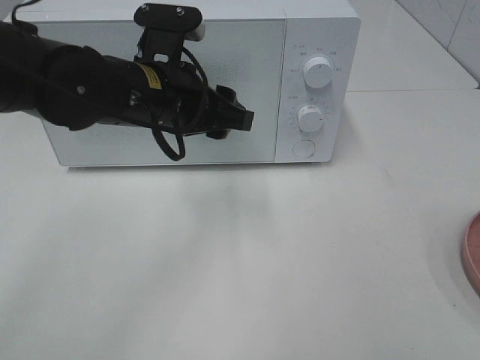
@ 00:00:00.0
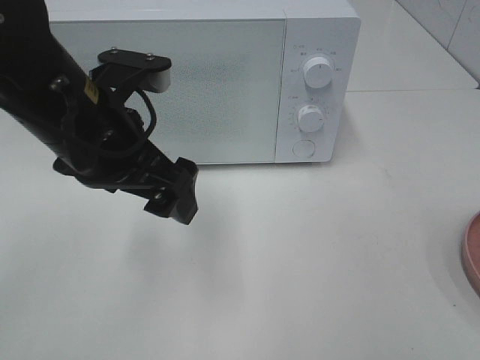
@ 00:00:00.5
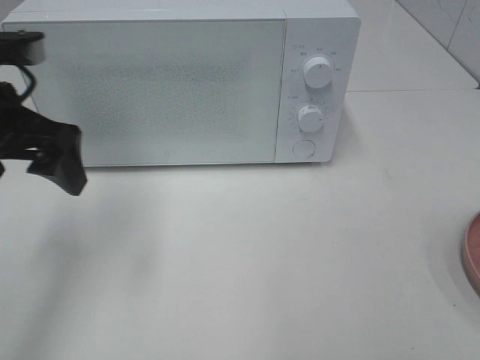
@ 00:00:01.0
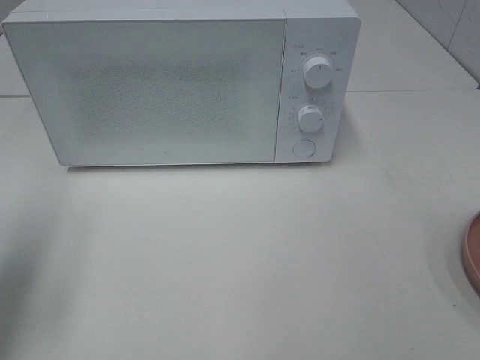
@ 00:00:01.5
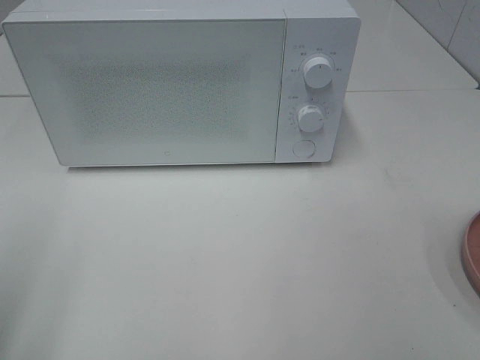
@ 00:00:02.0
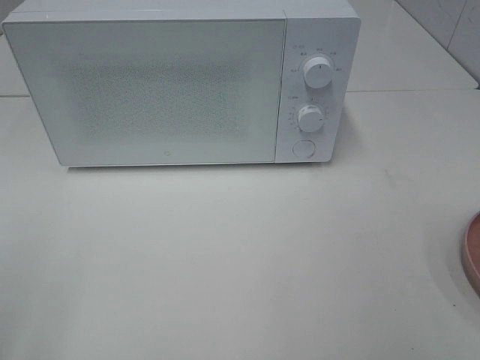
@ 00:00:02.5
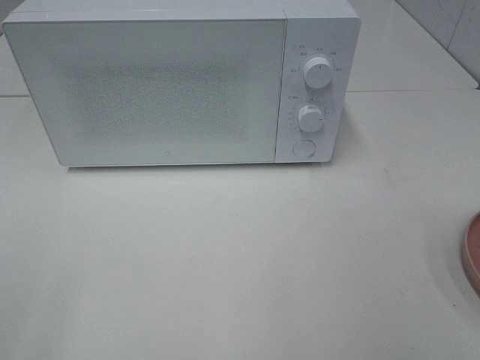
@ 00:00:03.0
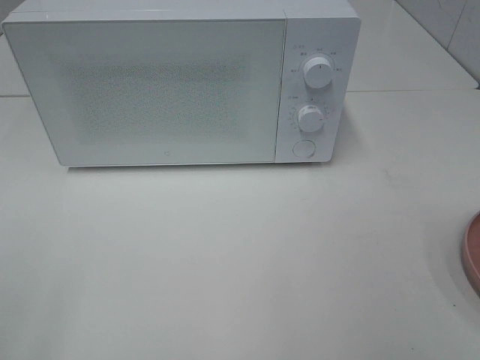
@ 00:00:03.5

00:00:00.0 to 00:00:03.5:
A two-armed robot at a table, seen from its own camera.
Task of the whole recording: Heat the burger.
00:00:00.0 to 00:00:02.0: The left gripper is displaced to the left and backward by some 35 cm.

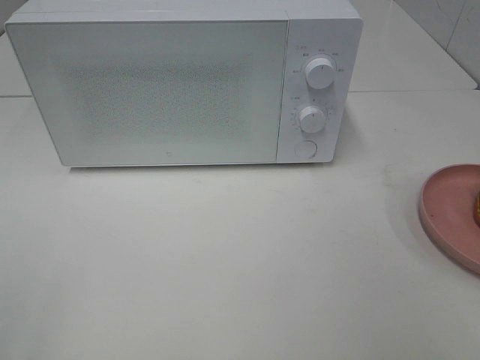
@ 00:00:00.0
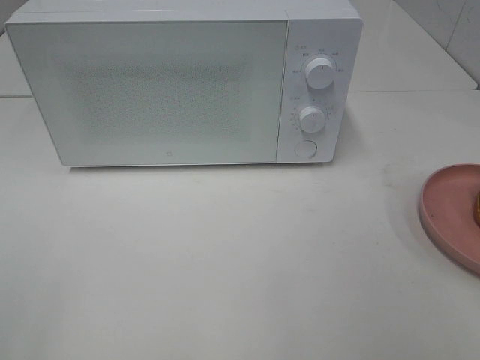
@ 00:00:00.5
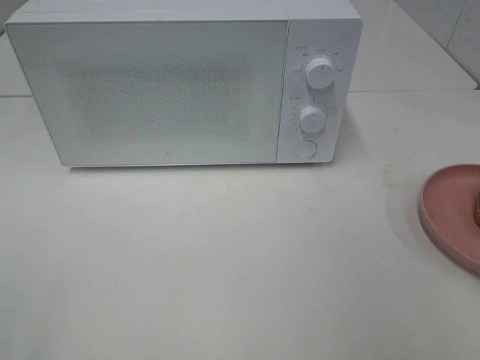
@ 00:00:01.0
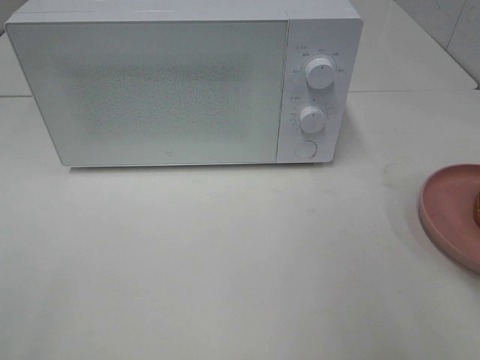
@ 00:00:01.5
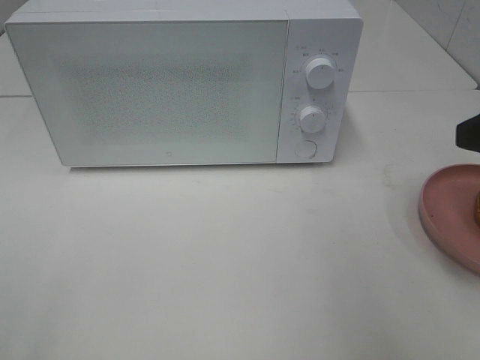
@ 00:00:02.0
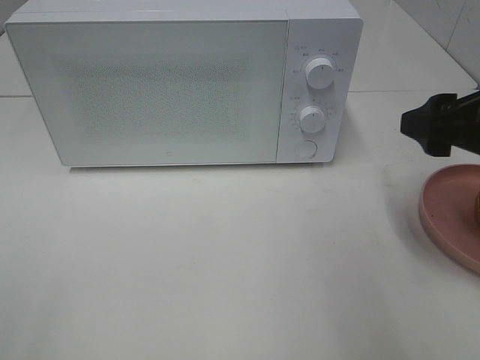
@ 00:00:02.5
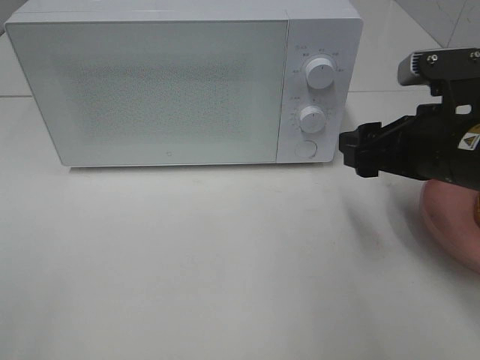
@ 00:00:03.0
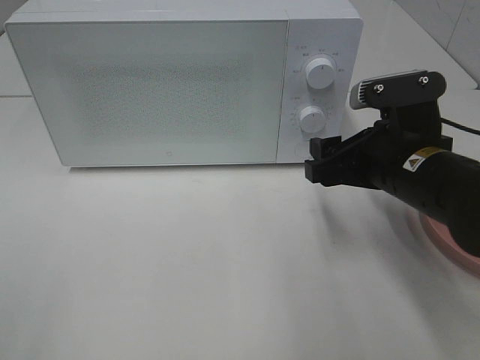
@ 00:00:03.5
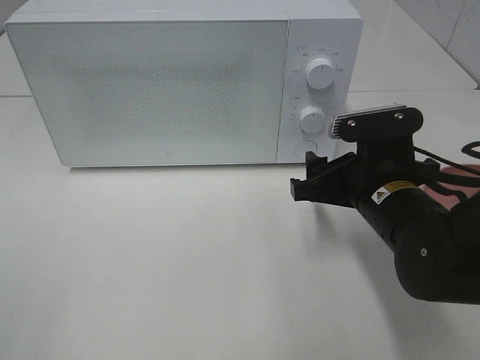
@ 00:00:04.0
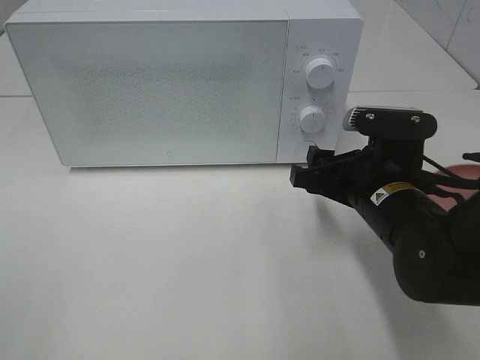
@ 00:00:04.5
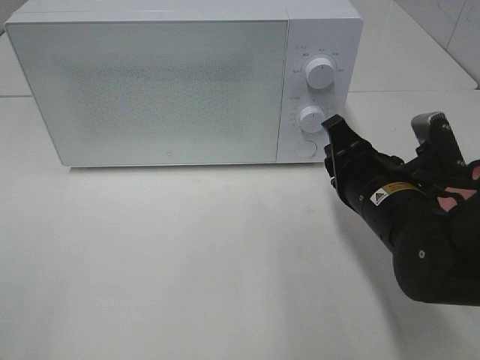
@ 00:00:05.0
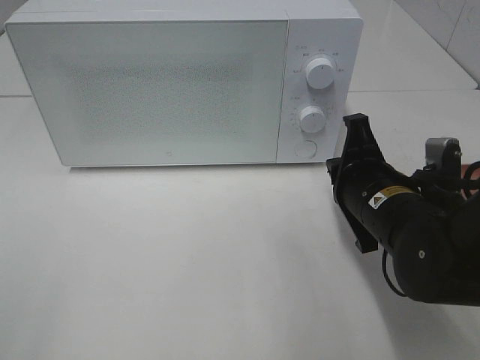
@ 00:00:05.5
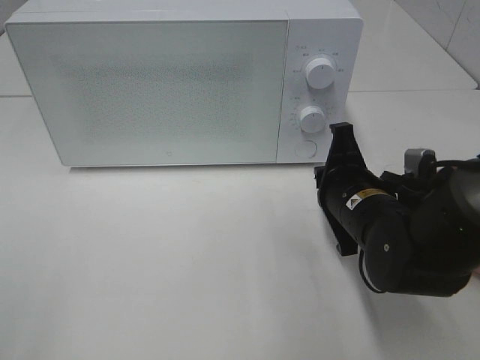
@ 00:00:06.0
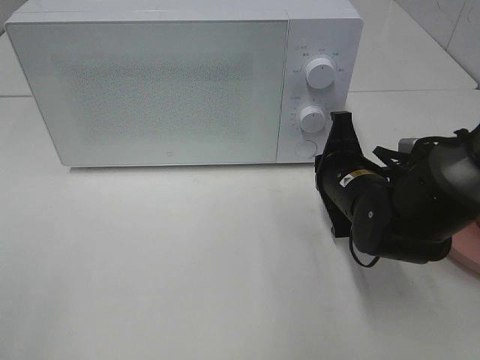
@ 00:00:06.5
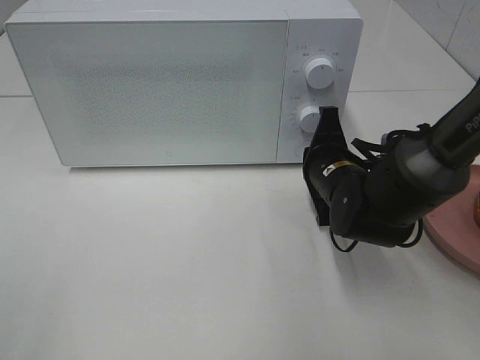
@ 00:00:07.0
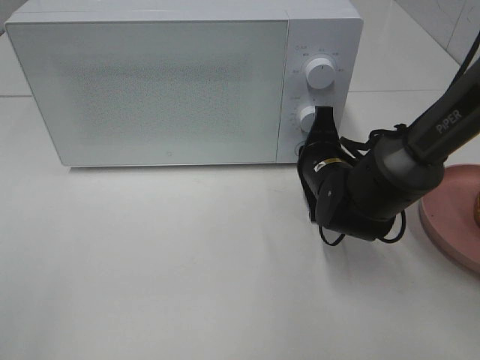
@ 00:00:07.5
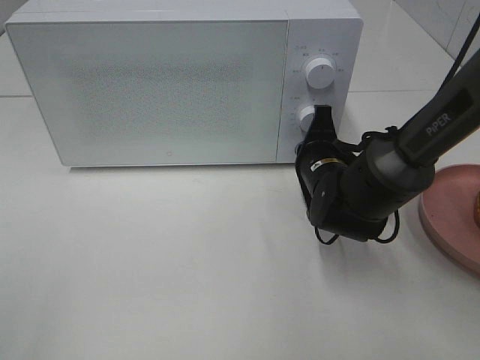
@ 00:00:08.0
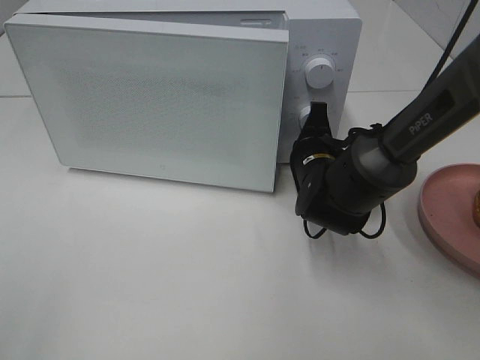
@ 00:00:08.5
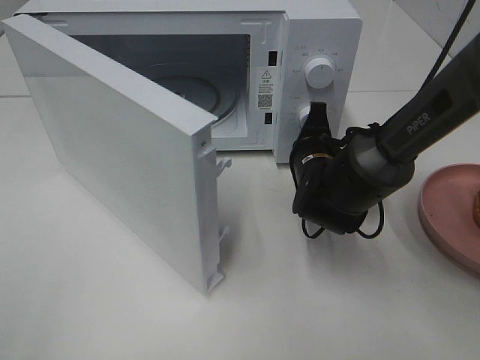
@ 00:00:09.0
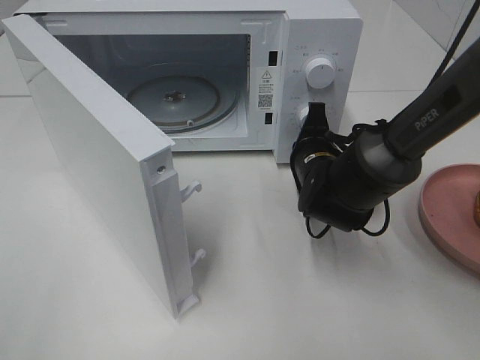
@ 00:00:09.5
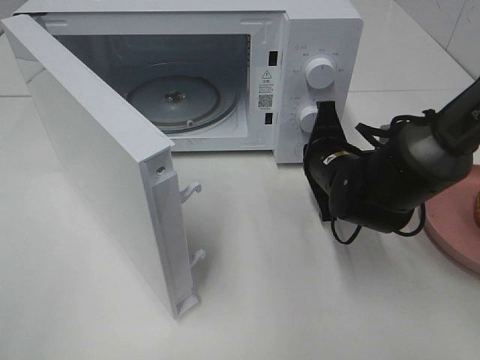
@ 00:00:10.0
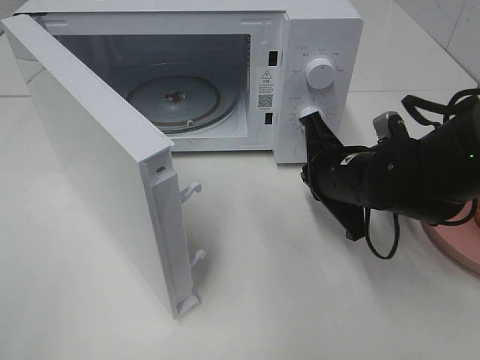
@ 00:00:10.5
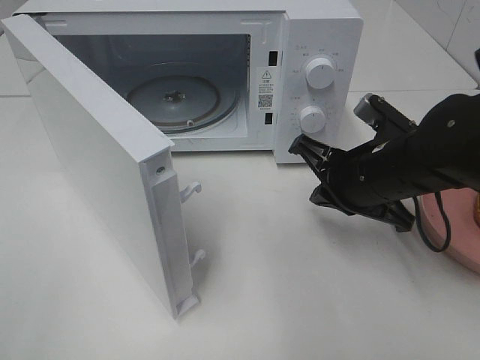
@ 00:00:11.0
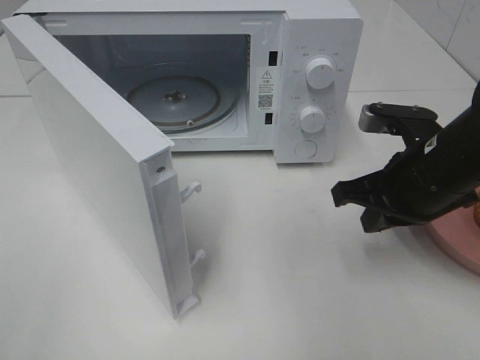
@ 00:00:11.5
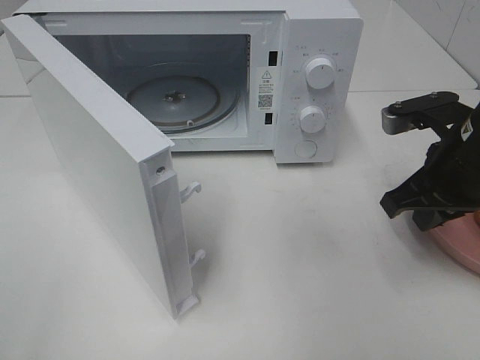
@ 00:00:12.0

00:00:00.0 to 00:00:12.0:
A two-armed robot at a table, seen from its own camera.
Task of the whole recording: Heat the burger.
Step, 00:00:00.0 to 00:00:09.5: Right hand: press the switch.
00:00:02.0 to 00:00:04.0: The right gripper is displaced downward, to the left and forward by roughly 20 cm.
00:00:04.0 to 00:00:06.0: The right gripper closes its fingers.
00:00:06.0 to 00:00:08.0: The right gripper goes about 10 cm forward.
00:00:10.0 to 00:00:12.0: The right gripper heads upward, to the right and backward, covering roughly 15 cm.

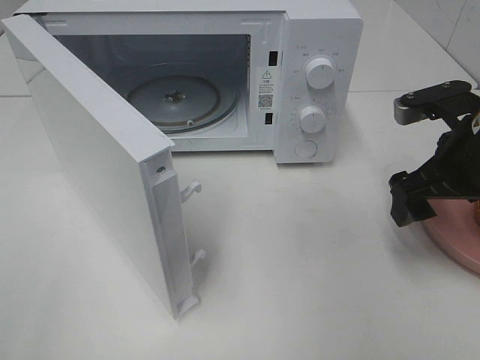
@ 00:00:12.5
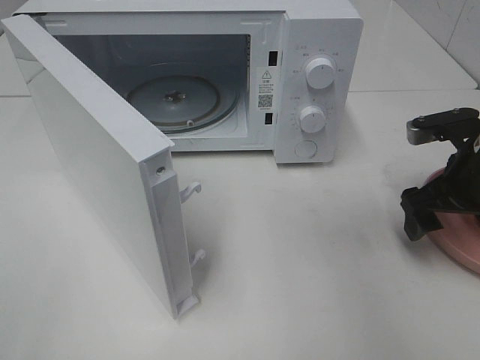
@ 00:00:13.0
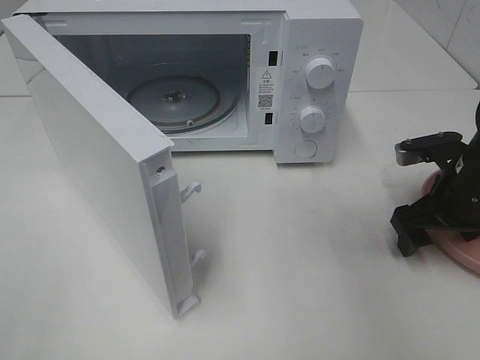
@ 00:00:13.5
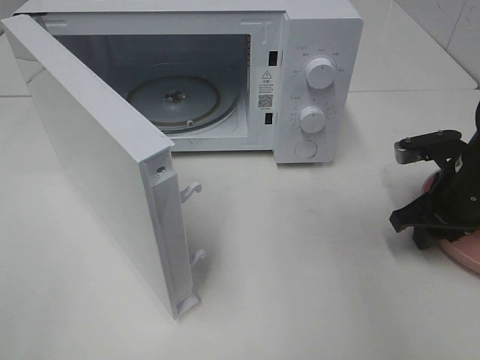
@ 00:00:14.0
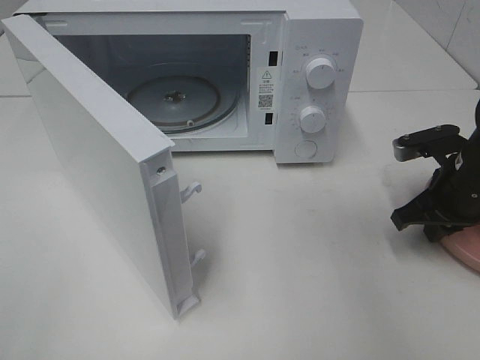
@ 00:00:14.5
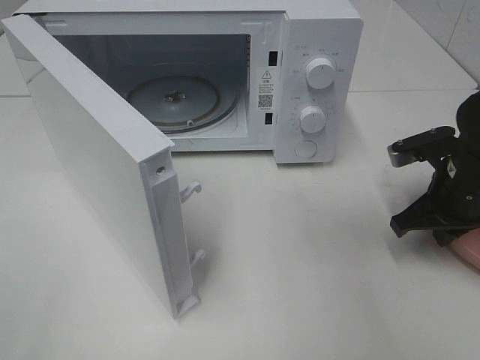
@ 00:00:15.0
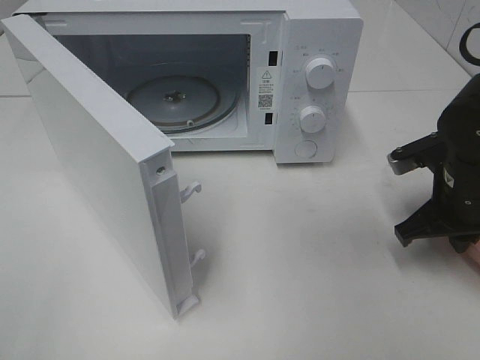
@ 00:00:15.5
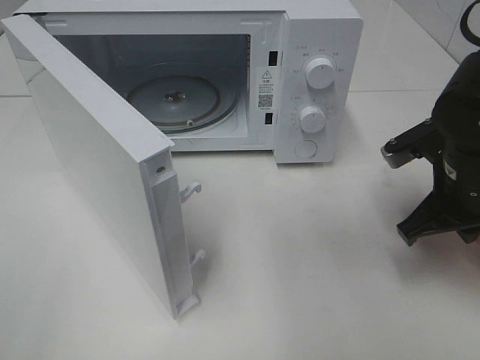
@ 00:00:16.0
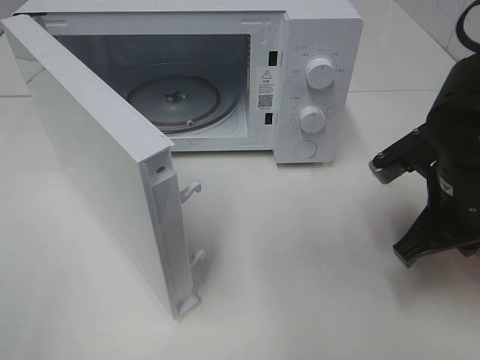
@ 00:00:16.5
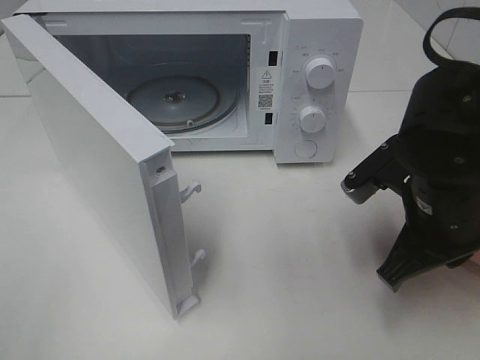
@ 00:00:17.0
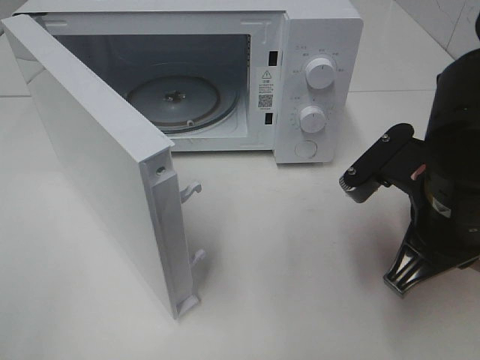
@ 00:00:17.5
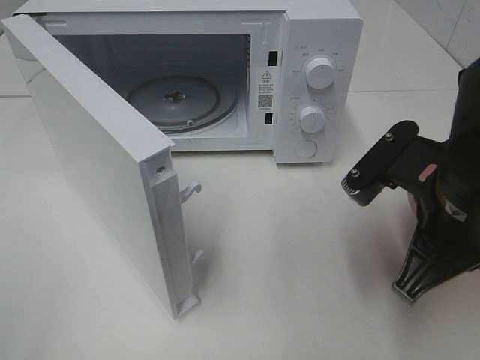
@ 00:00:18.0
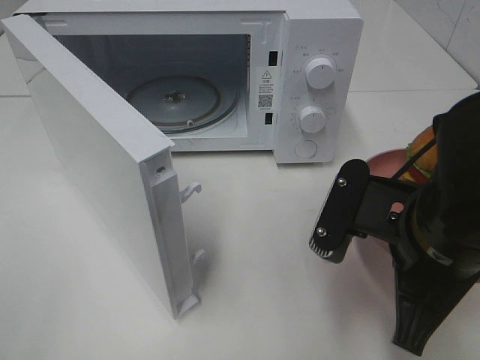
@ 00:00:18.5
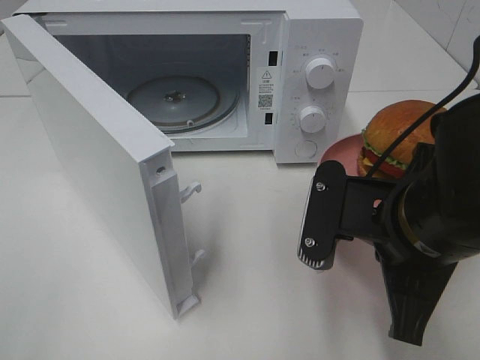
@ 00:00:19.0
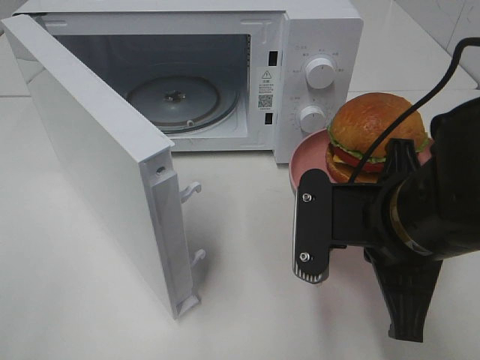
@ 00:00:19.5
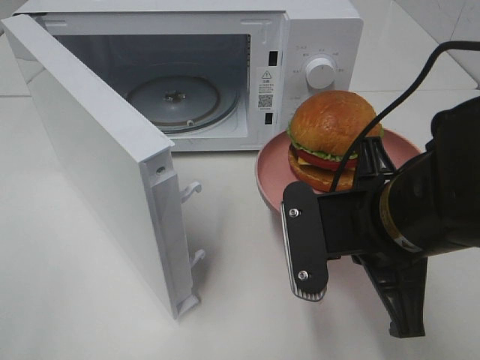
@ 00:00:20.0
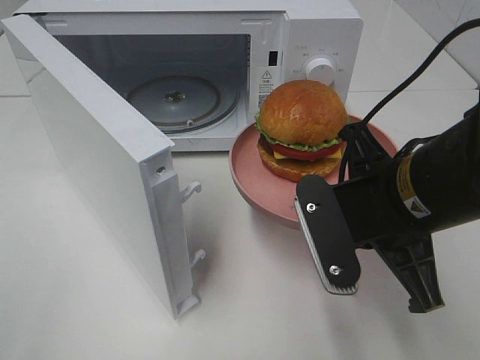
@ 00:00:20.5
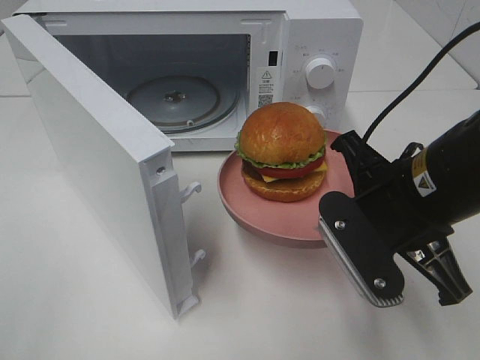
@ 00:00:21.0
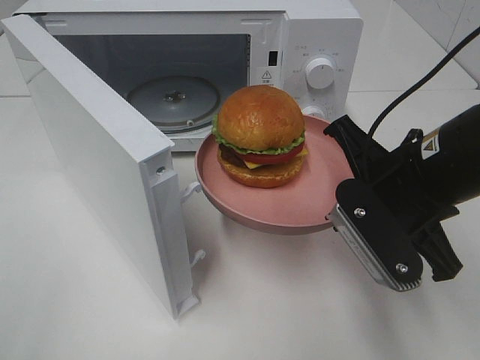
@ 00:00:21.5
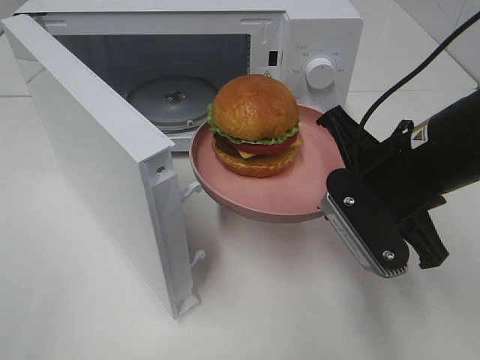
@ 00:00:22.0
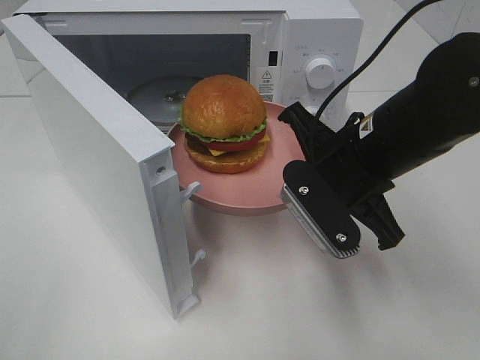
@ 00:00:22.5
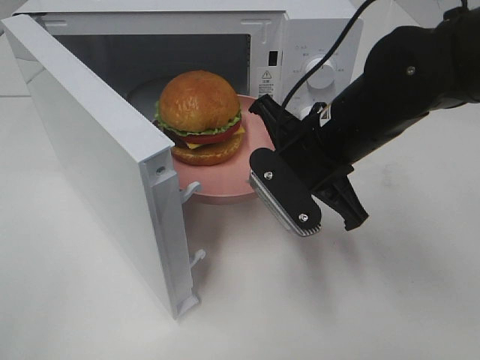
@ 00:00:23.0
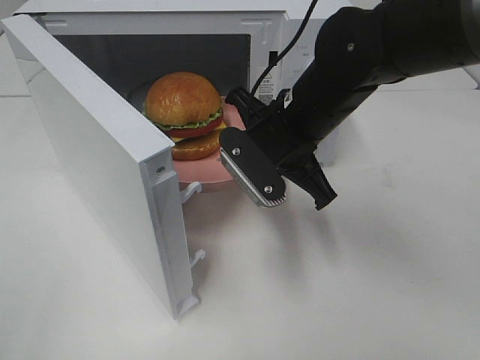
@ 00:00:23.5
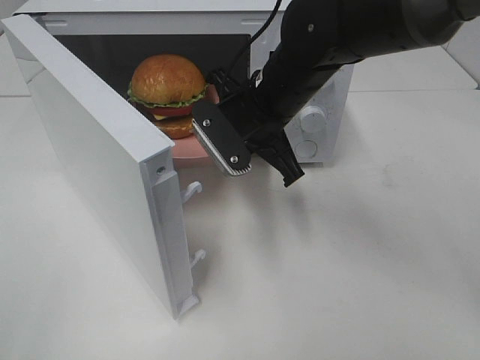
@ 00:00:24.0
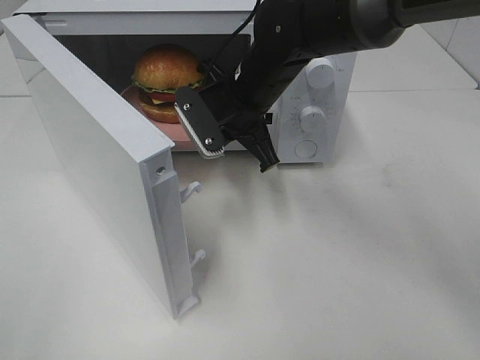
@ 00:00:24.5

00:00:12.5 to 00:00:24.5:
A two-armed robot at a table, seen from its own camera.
Task of the whole recording: Heat the burger.
00:00:12.5 to 00:00:14.5: The right gripper heads downward, covering approximately 5 cm, and closes its fingers.
00:00:14.5 to 00:00:16.5: The right gripper is displaced to the left and backward by about 10 cm.
00:00:16.5 to 00:00:18.5: The right gripper shifts approximately 10 cm backward and to the left.
00:00:20.5 to 00:00:22.5: The right gripper is displaced forward by some 5 cm.
00:00:22.5 to 00:00:24.5: The right gripper is displaced forward and to the left by some 15 cm.
